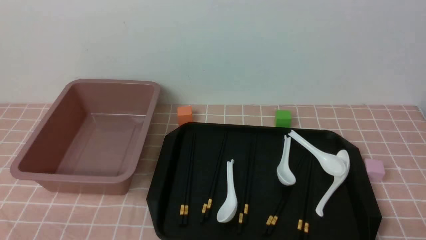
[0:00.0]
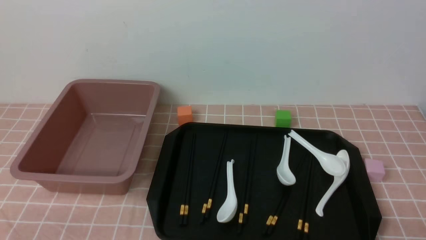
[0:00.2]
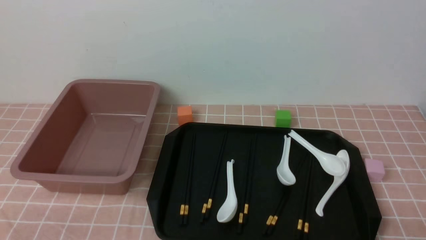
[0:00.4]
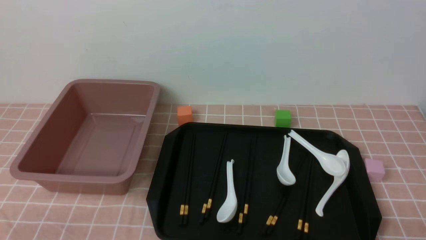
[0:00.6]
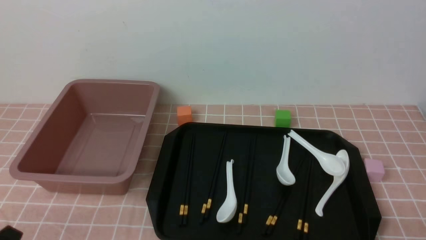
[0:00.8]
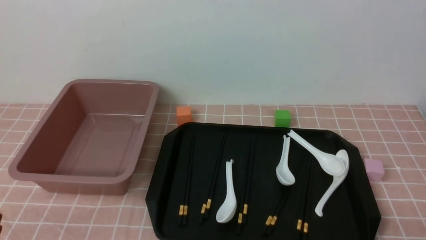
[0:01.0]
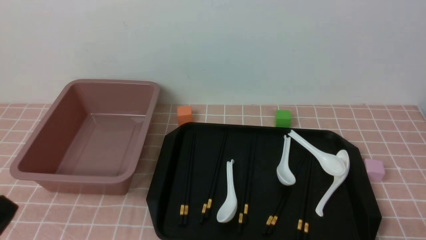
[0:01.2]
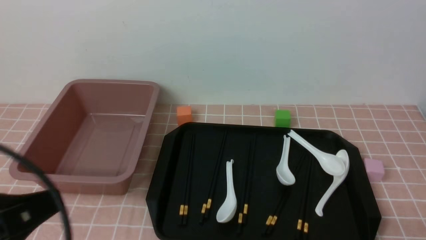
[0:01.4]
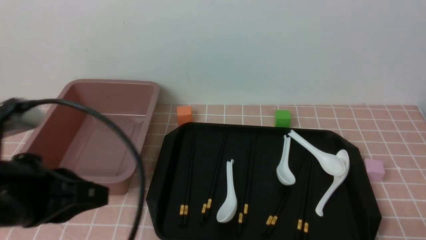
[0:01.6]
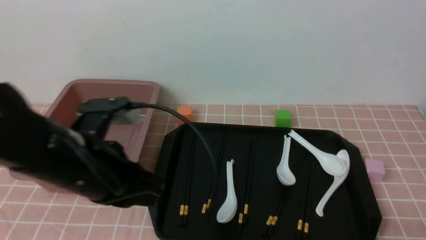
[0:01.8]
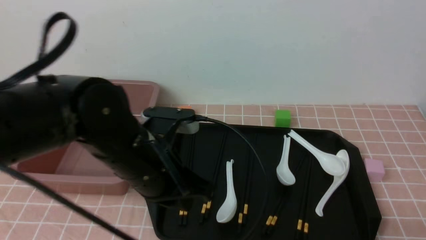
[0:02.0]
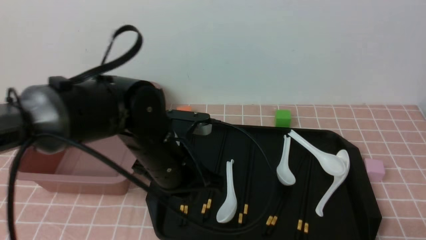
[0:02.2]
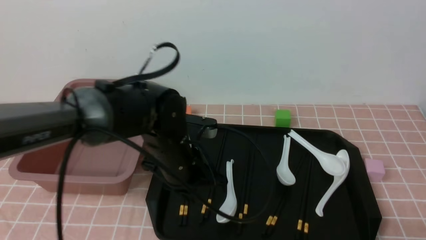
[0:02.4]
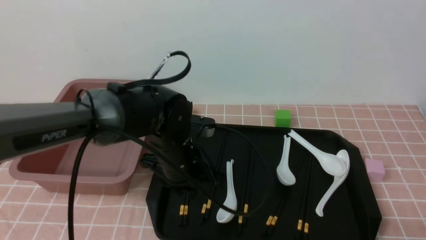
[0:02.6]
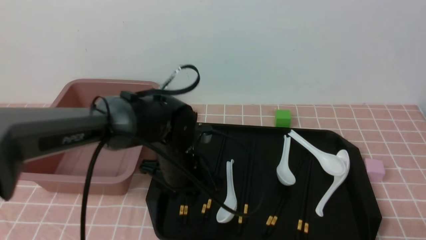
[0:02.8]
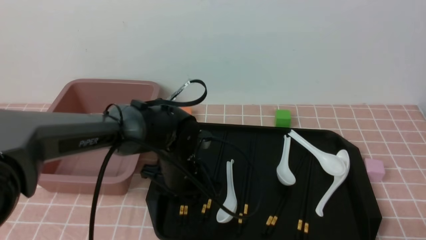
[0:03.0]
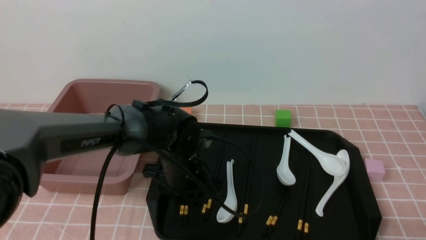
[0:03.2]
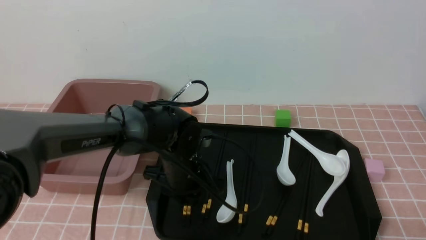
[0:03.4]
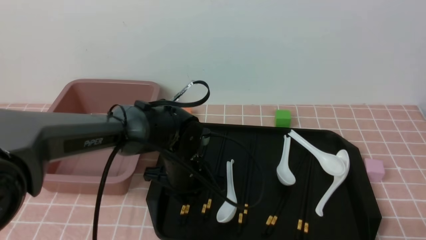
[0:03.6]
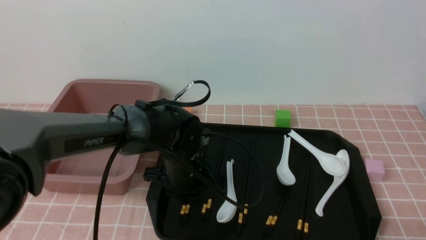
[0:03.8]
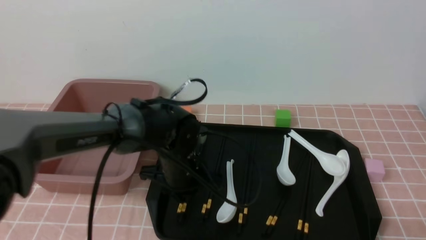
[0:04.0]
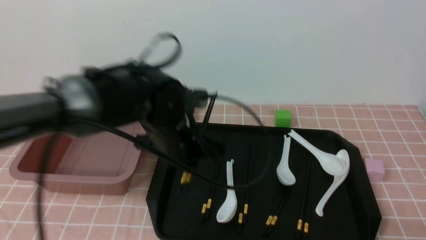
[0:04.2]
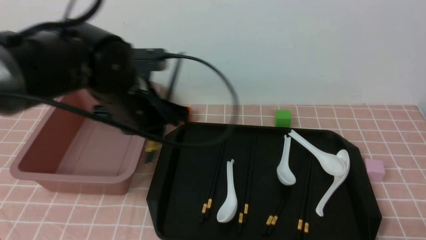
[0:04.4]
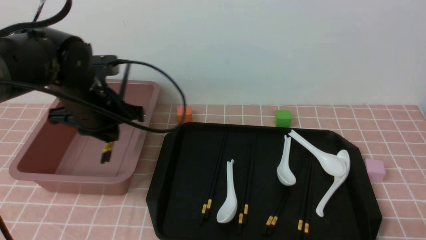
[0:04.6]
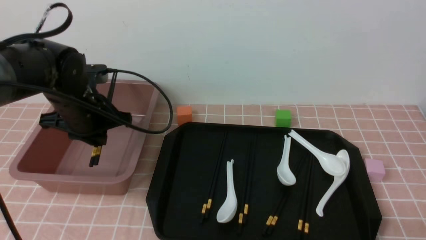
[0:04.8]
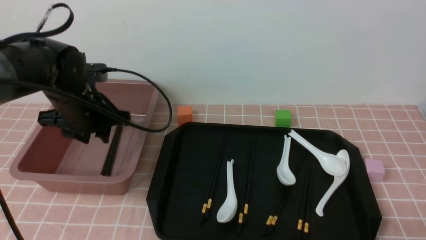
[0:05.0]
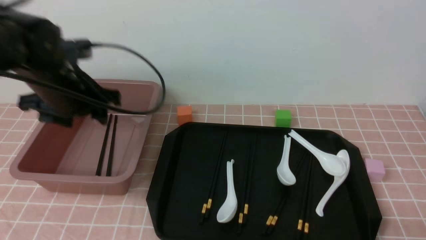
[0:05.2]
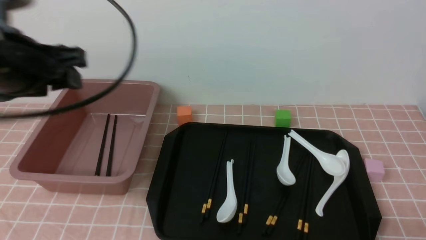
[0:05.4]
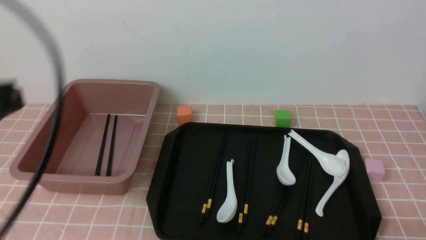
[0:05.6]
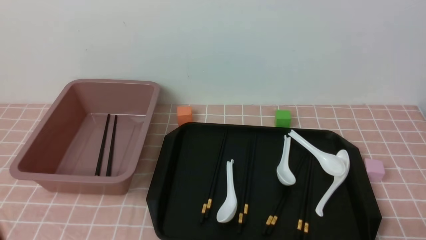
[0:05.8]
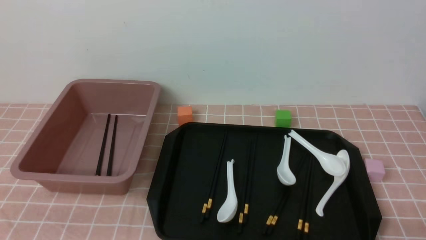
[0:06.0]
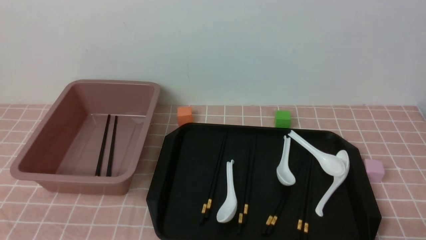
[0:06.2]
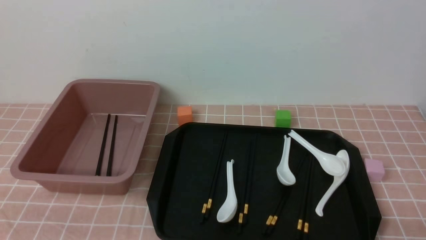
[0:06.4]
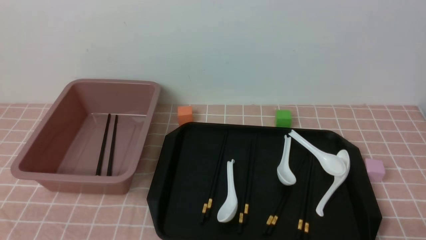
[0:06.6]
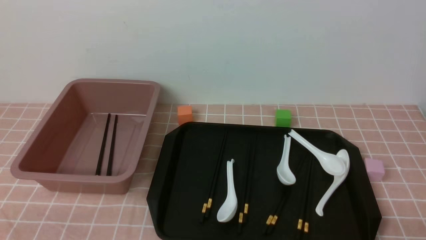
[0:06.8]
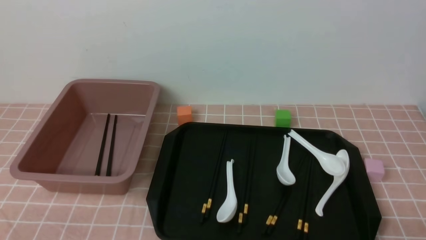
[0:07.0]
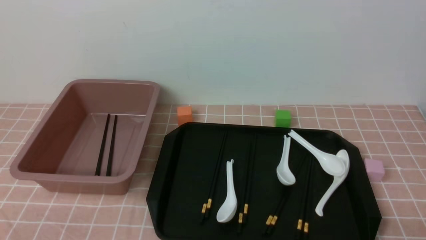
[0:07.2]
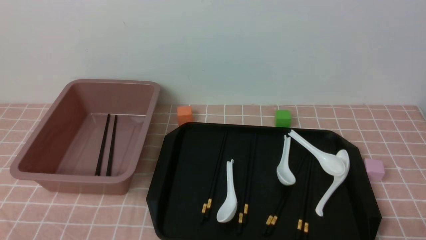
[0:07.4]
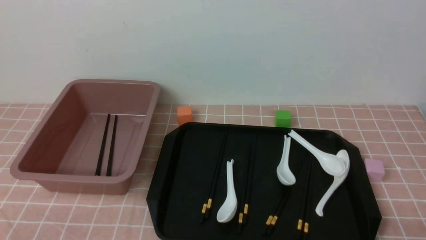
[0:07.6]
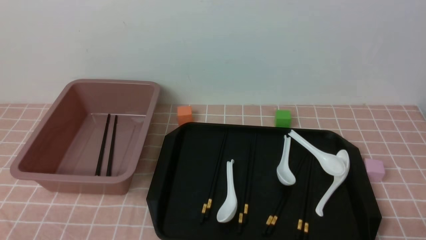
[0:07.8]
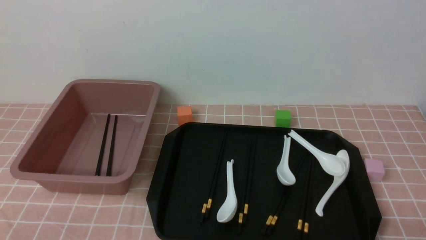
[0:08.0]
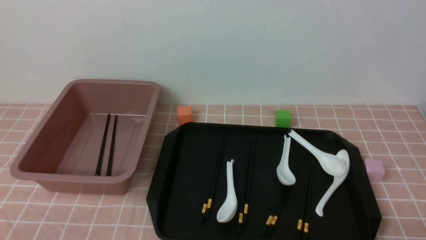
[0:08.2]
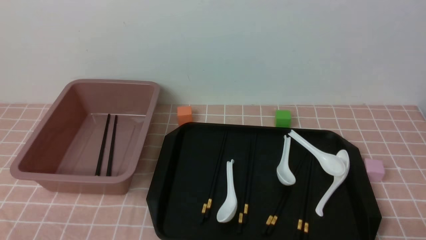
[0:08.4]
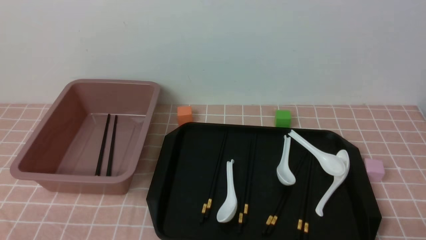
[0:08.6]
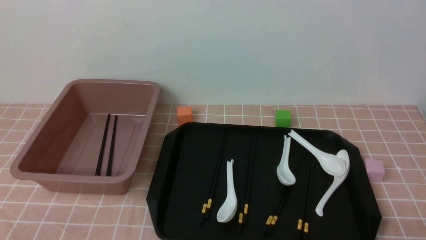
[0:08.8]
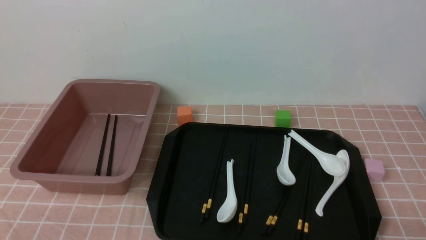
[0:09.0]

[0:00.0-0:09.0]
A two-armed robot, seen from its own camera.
Step, 0:00.0 to 0:04.2: use the left arm to grab a pair of chopsticks.
Step, 0:04.4 to 0:05.4: use the left arm to put the chopsticks into the lunch box.
0:00.0 to 0:01.6: The left gripper shifts roughly 20 cm upward, forward and to the right, and closes.
0:01.6 to 0:03.0: The left gripper heads forward, downward and to the right, covering about 25 cm, and opens.
0:03.0 to 0:04.4: The left gripper is displaced upward and to the left by roughly 15 cm, and closes its fingers.
0:04.4 to 0:06.0: The left gripper goes about 30 cm backward and to the left, and opens, then closes again.
0:07.6 to 0:09.0: Neither gripper changes place.
